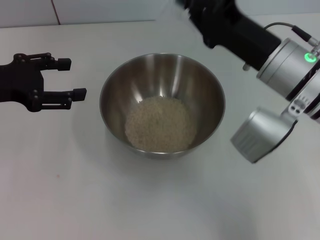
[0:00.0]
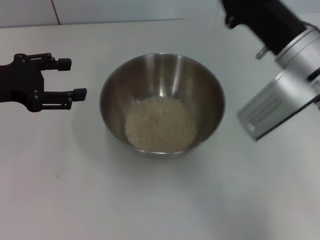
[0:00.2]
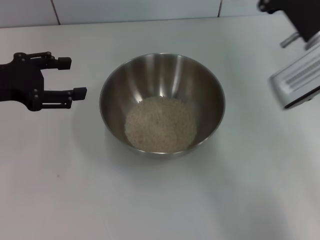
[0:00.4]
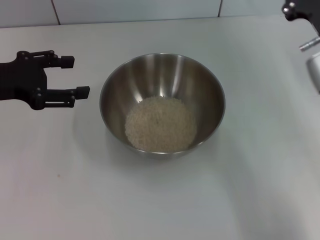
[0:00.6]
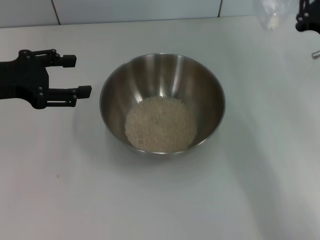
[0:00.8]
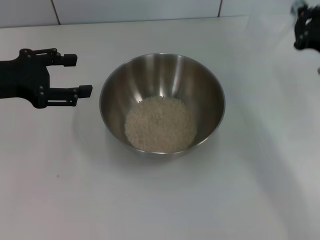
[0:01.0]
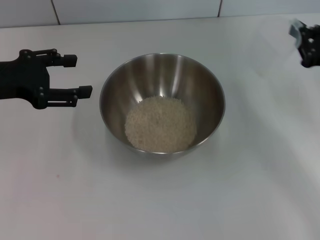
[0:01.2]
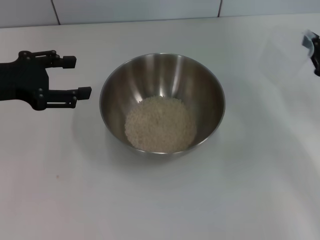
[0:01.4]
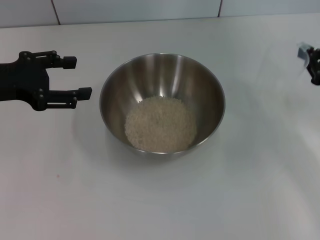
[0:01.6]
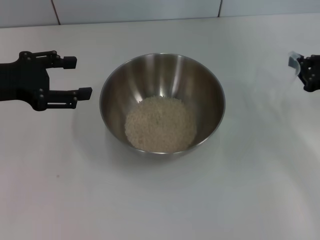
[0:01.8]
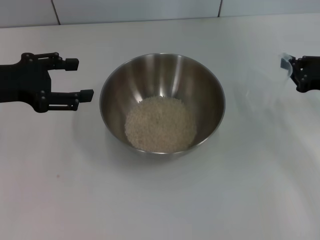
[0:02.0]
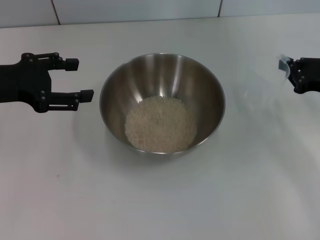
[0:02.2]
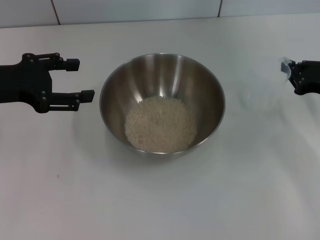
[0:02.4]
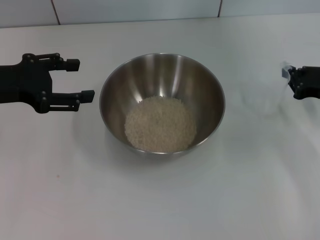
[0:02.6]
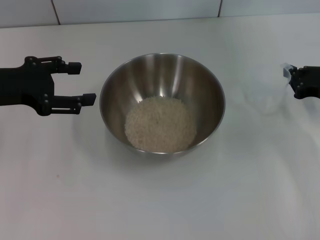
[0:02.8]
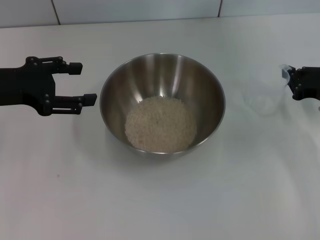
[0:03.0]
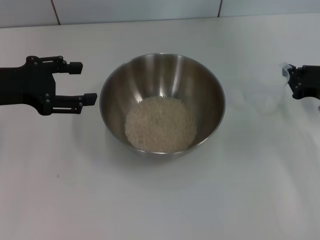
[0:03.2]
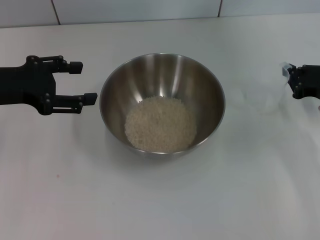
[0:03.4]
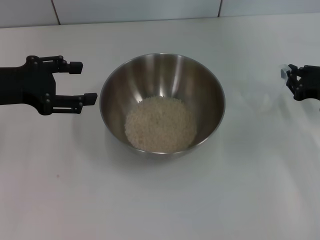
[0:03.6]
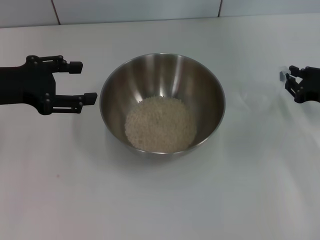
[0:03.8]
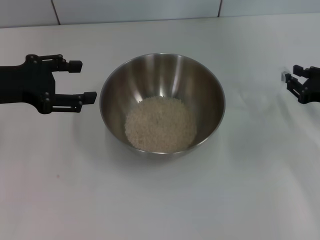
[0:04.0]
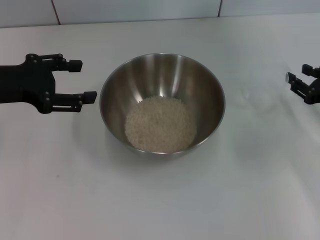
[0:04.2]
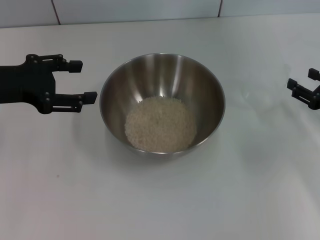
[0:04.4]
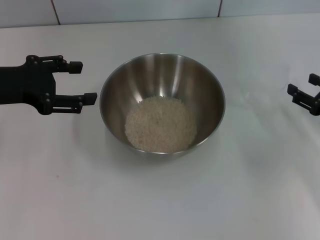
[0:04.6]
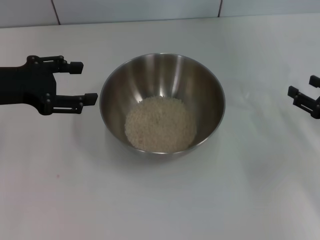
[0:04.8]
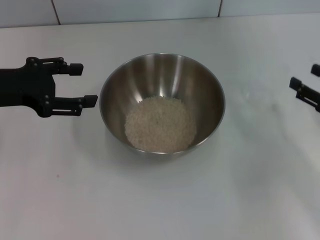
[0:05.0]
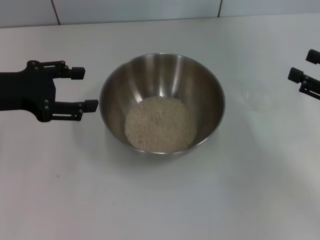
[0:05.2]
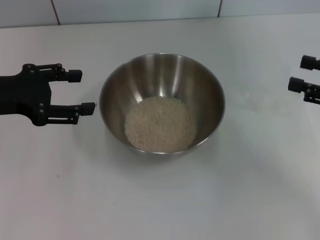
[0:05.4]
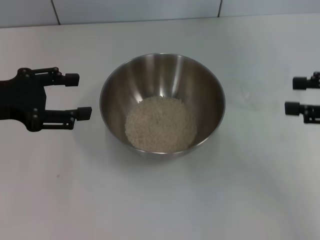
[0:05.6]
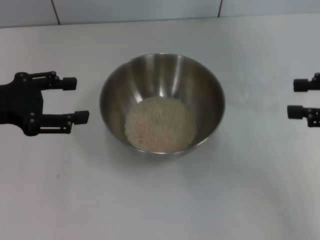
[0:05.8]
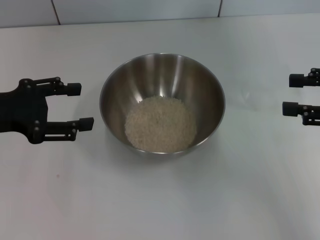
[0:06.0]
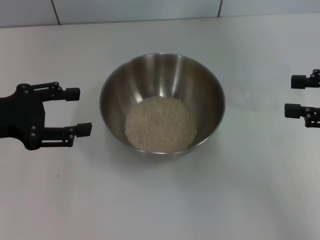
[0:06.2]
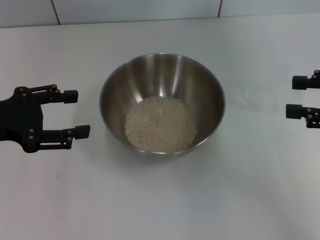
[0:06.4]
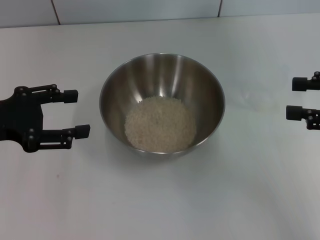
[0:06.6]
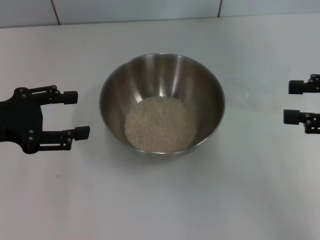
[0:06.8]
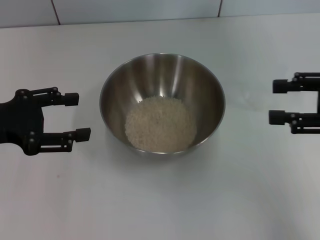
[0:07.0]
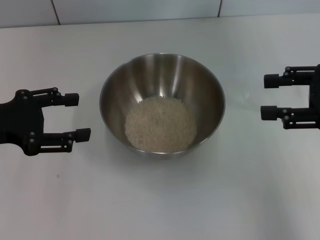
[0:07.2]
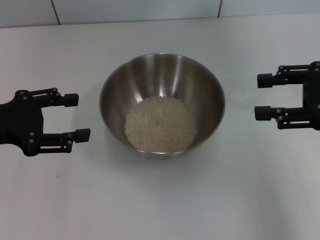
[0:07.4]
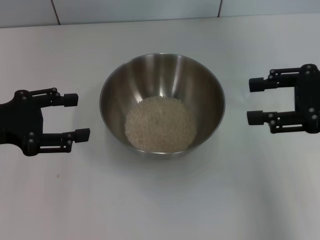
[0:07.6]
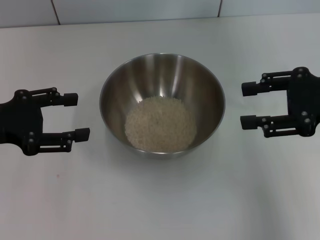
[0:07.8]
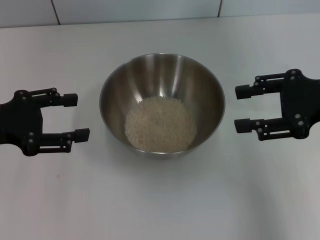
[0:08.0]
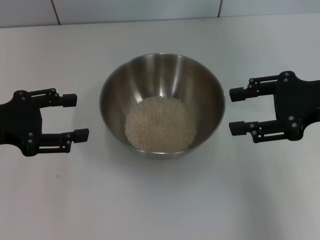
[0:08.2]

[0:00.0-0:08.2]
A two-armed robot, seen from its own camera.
Task of the whole recording: Place the bowl in the middle of the table with one hand and pour the rice from the grain cup into it with the other hand.
Step, 0:01.2 to 0:04.8: Place the cup on the table with the right gripper.
0:00.0 to 0:01.6: The right gripper is displaced to the right by roughly 20 cm.
0:01.6 to 0:03.2: The grippers make only small movements.
0:03.2 to 0:05.0: The right gripper heads backward, covering roughly 5 cm, and opens.
0:05.0 to 0:06.6: The right gripper goes roughly 10 cm upward.
0:06.6 to 0:08.2: The right gripper travels to the left by about 5 cm.
